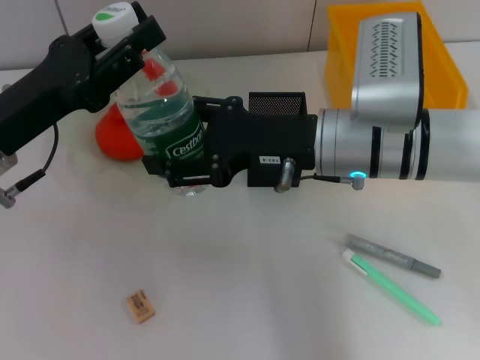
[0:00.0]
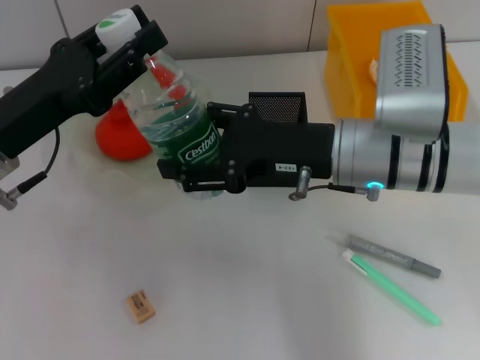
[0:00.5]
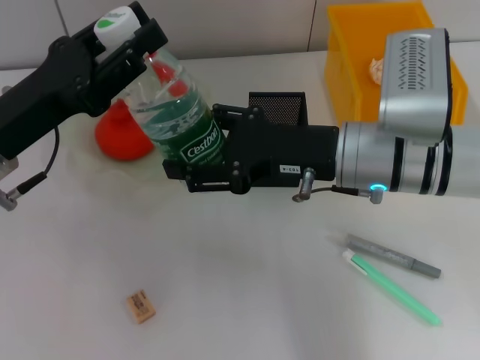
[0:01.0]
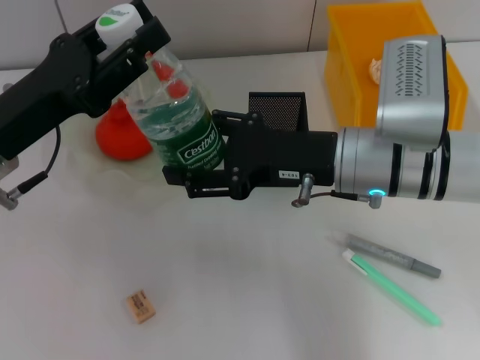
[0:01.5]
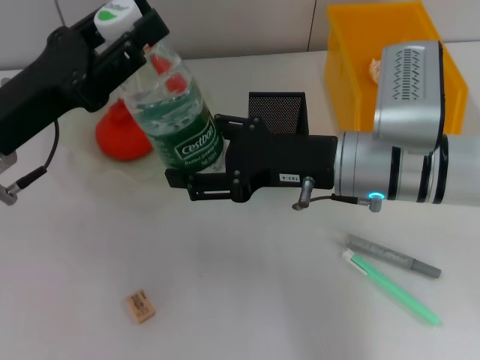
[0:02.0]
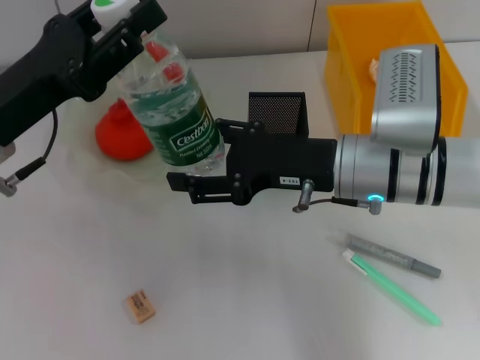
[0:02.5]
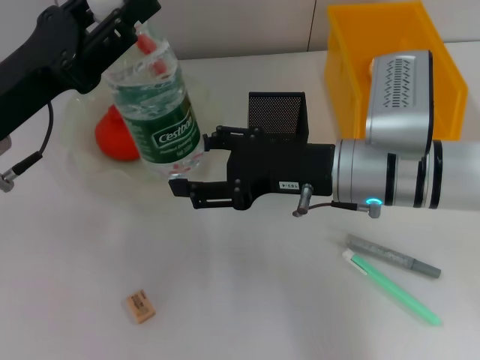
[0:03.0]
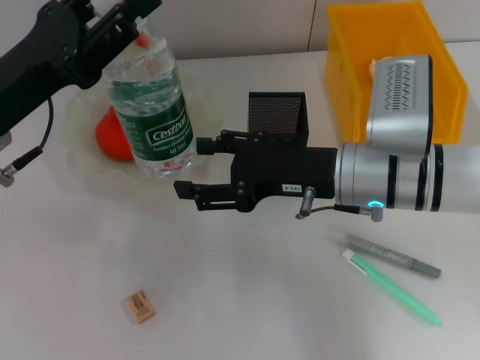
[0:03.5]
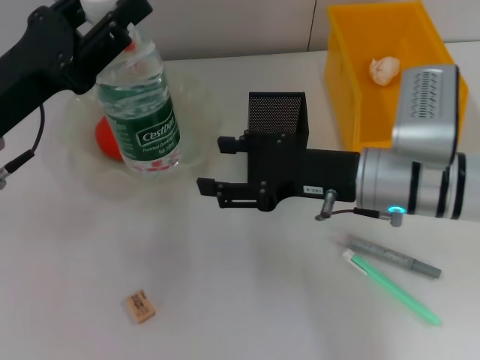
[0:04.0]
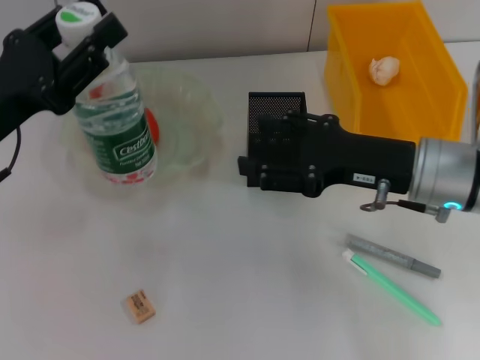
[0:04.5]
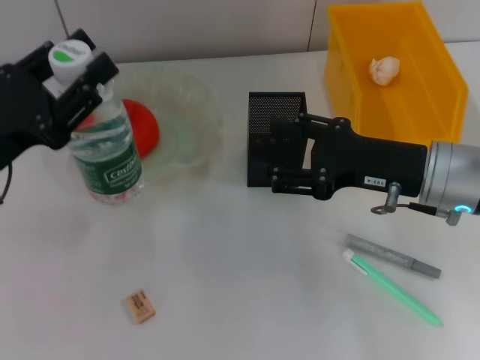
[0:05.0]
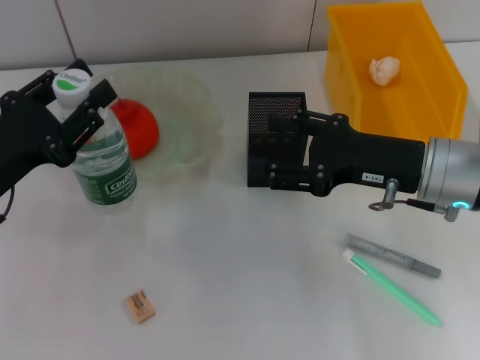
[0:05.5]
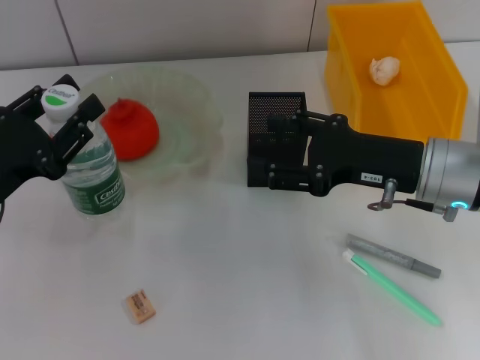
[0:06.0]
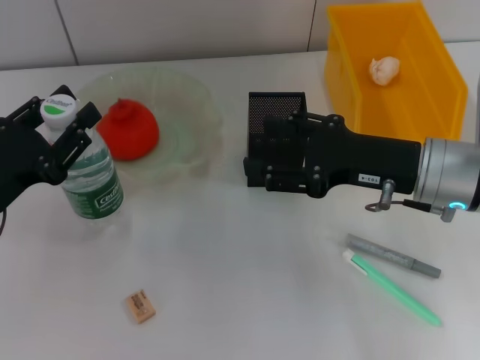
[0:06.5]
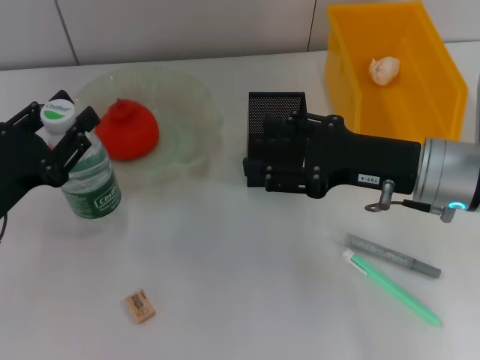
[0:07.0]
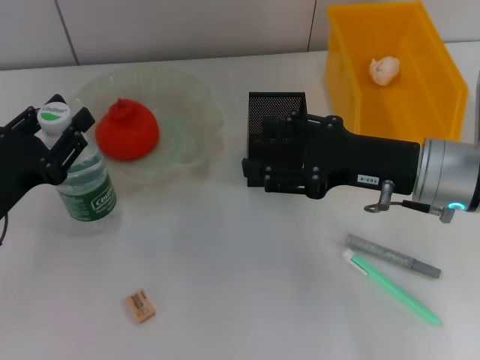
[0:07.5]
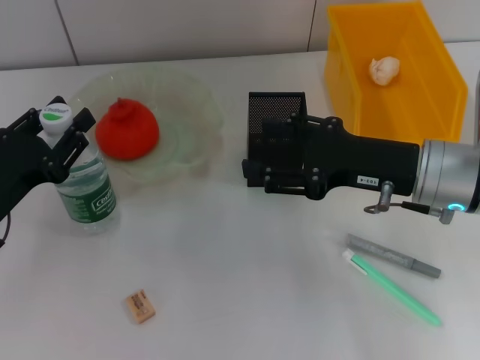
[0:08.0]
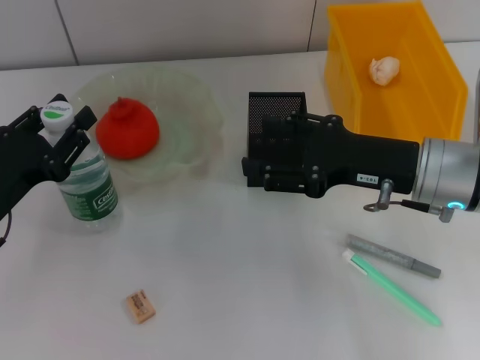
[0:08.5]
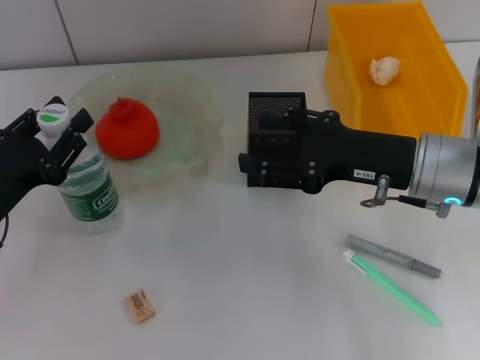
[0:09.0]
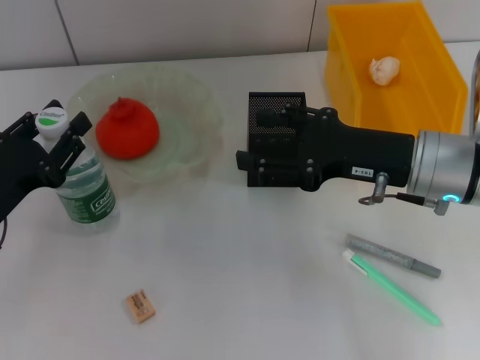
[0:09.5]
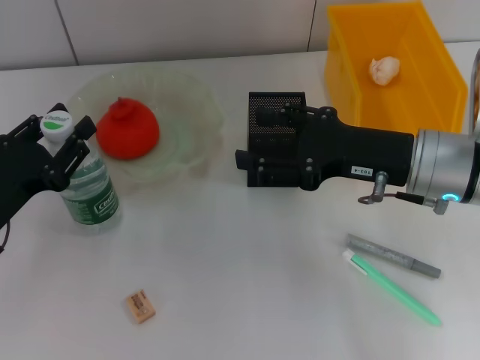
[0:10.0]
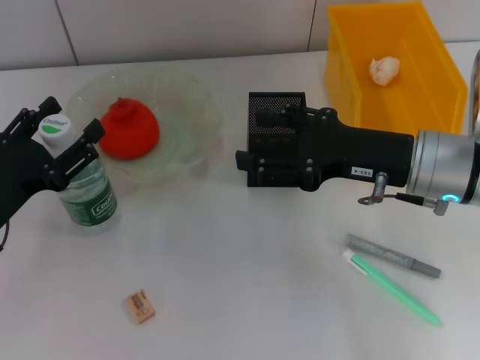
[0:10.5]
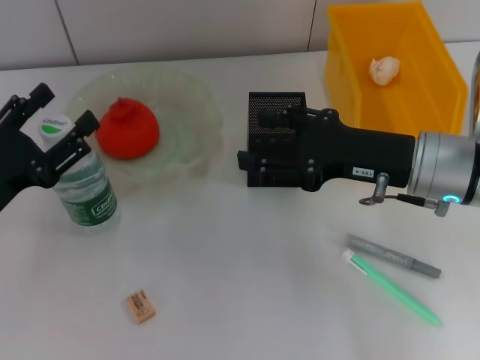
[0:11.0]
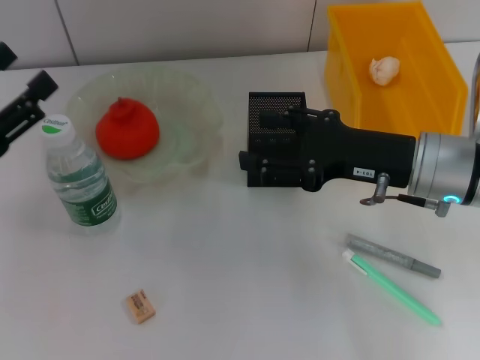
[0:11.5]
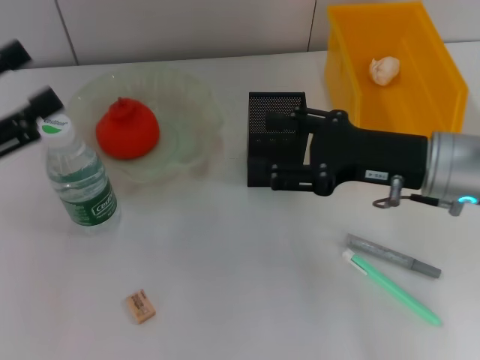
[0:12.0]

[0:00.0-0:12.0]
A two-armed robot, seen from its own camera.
Step, 0:00.0 to 0:03.0: Pass the water bottle from the right hand to the left hand.
Step, 0:04.0 to 0:10.5: Place the water bottle on the table with the left hand.
0:00.0 to 0:02.0: The grippers move only a little.
0:04.0 to 0:06.0: The left gripper shifts some 5 cm downward. Meanwhile the right gripper changes place by roughly 5 cm.
0:06.0 to 0:08.0: There are only small adjustments of the grippers.
0:08.0 to 0:10.0: Neither gripper changes place.
0:10.0 to 0:12.0: The left gripper is displaced upward by some 10 cm, and opens.

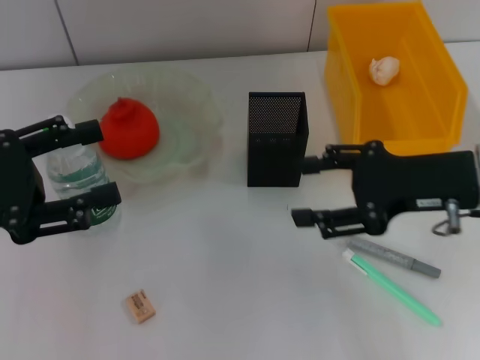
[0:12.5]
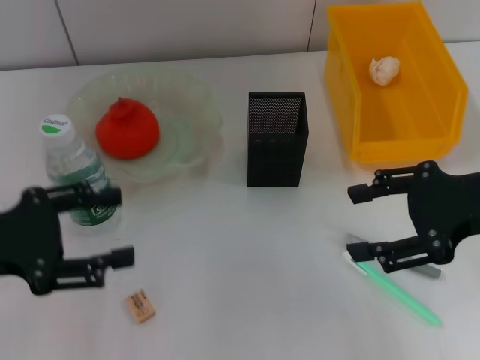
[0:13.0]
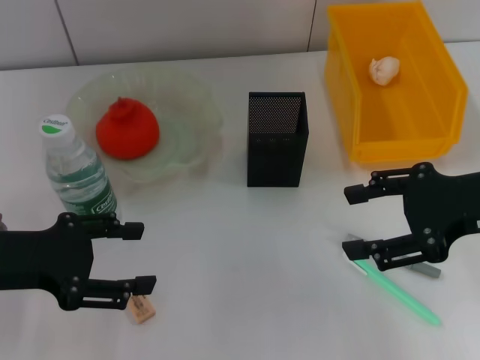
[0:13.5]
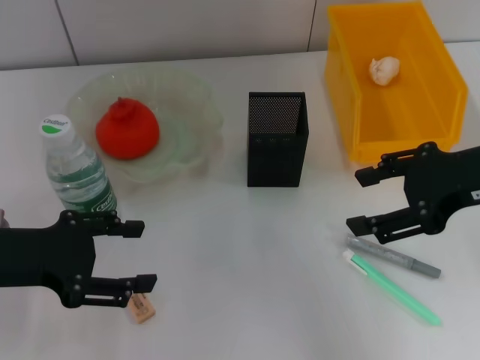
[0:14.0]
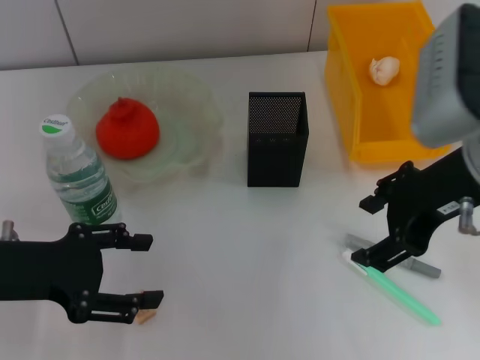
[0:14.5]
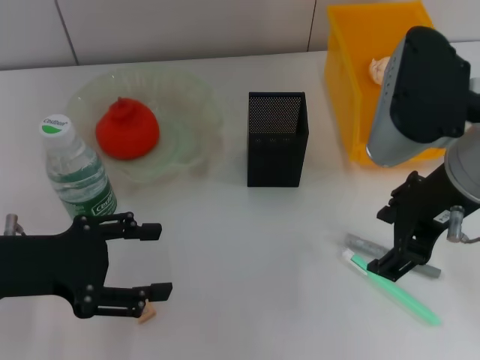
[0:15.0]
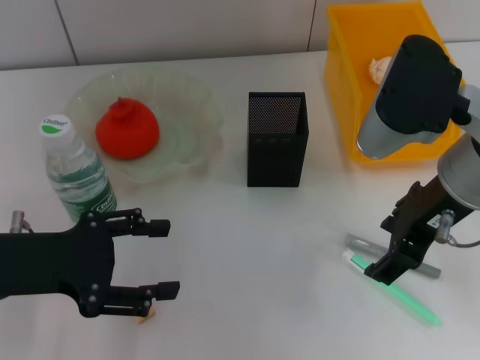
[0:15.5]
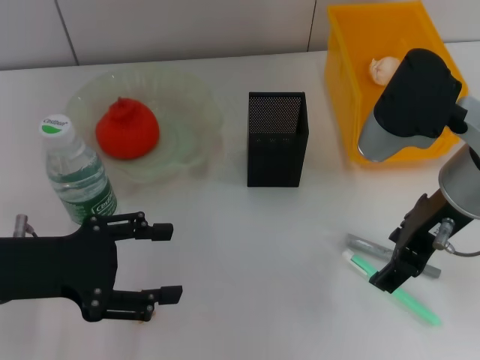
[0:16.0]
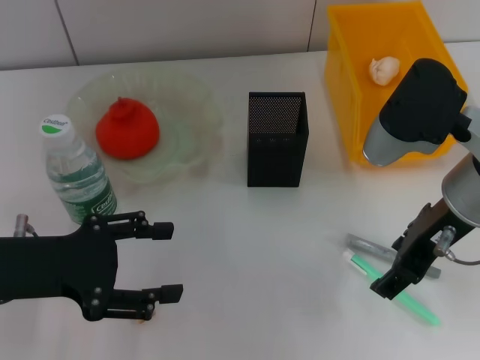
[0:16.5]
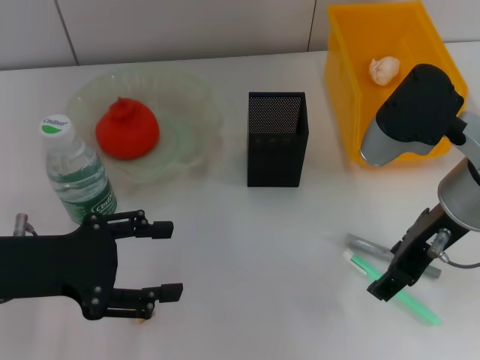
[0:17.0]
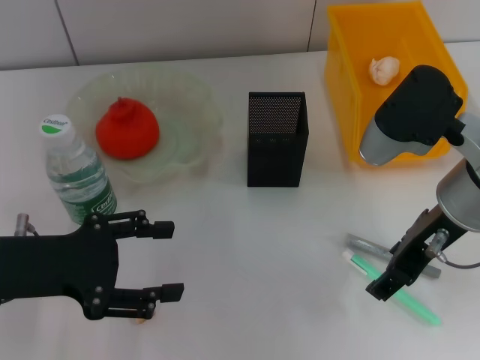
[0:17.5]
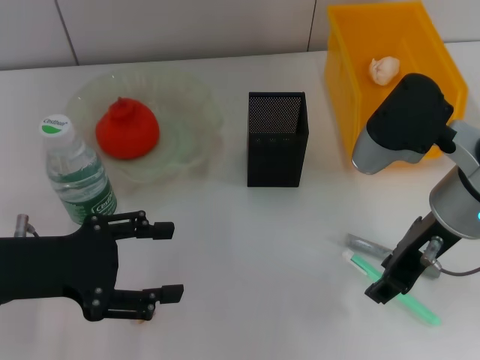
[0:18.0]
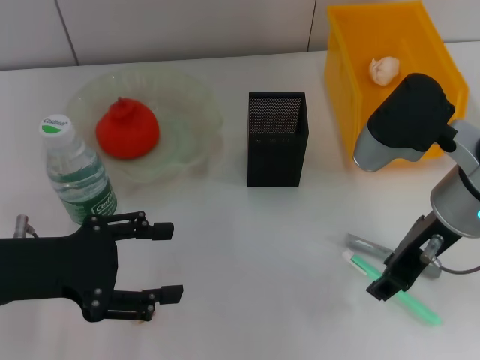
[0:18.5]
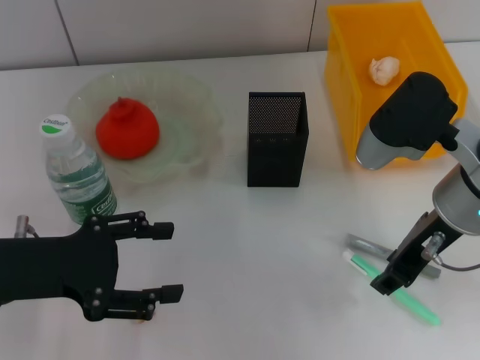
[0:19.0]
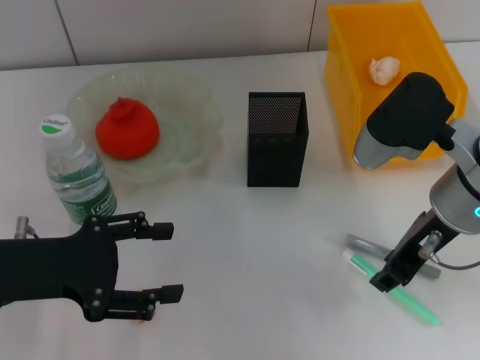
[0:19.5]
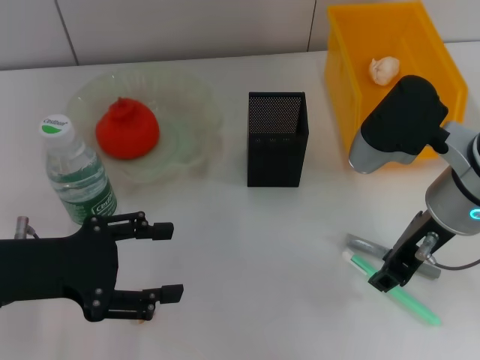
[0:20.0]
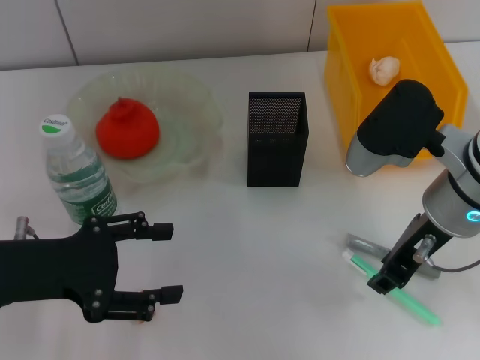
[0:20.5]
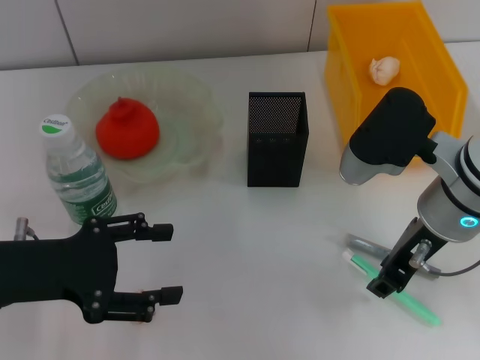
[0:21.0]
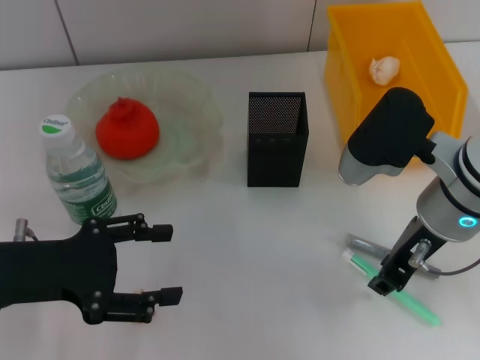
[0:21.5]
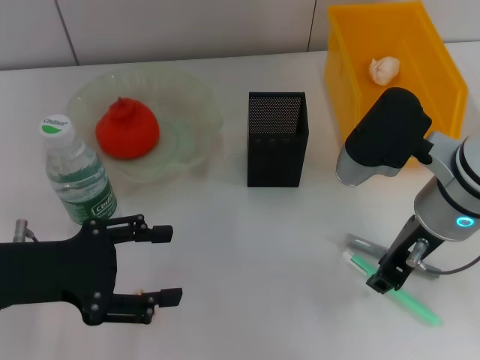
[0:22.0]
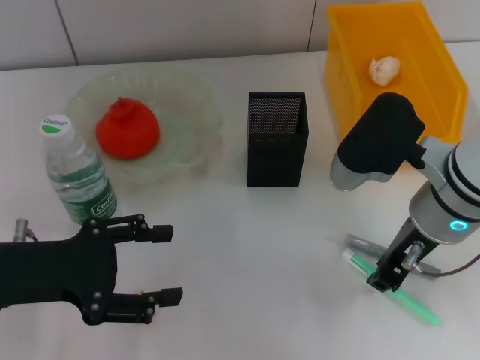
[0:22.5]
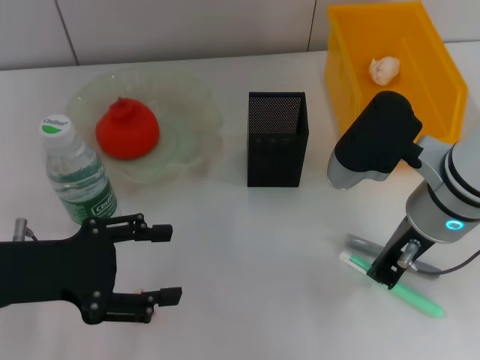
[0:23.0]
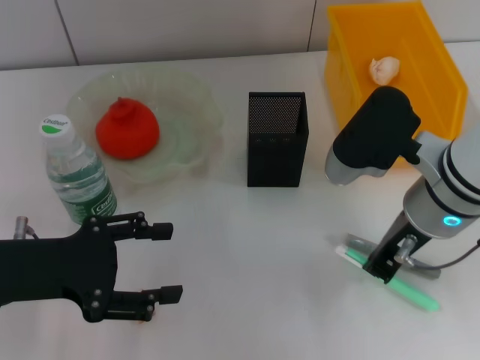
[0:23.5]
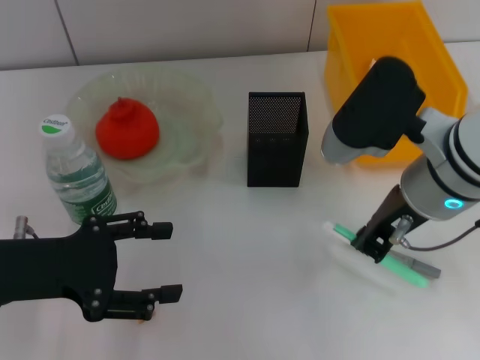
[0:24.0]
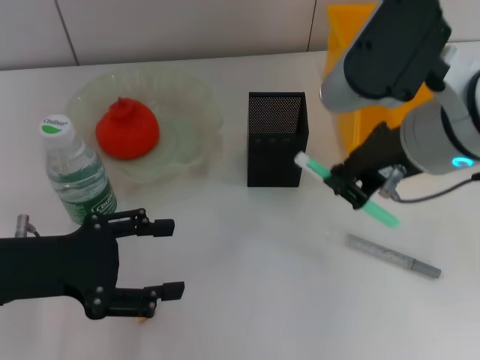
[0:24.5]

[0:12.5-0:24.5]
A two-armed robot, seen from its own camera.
Step, 0:12.5 to 0:23.0: Grab the blue utility knife with the right hand.
0:12.5 to 0:14.5: The right gripper goes some 10 cm upward and to the left.
0:16.5 to 0:18.5: The grippers make only small movements.
0:18.5 to 0:20.5: The two grippers keep their place.
0:20.5 to 0:22.5: The grippers move only a little.
0:22.5 to 0:24.5: The right gripper heads upward, covering about 10 cm.

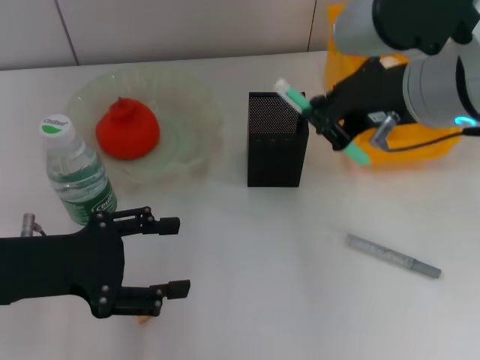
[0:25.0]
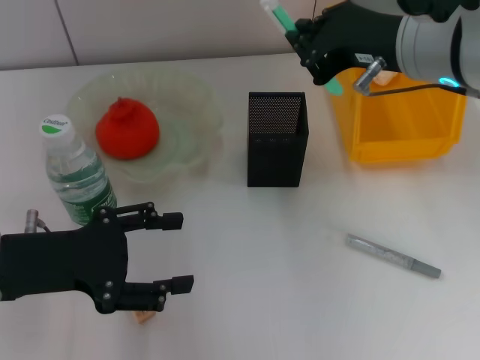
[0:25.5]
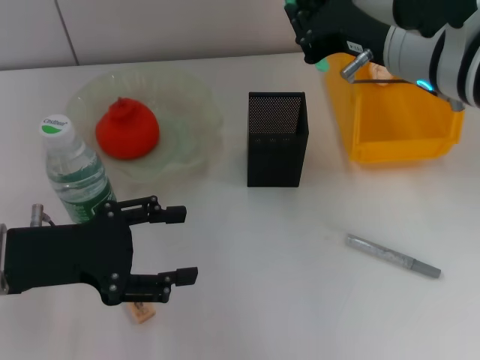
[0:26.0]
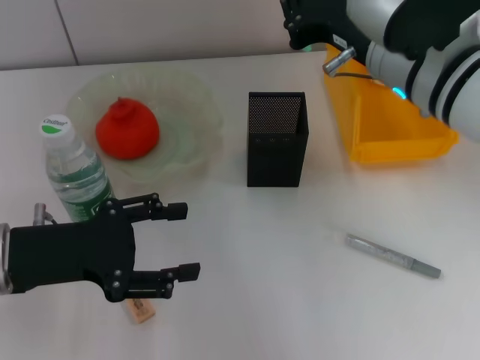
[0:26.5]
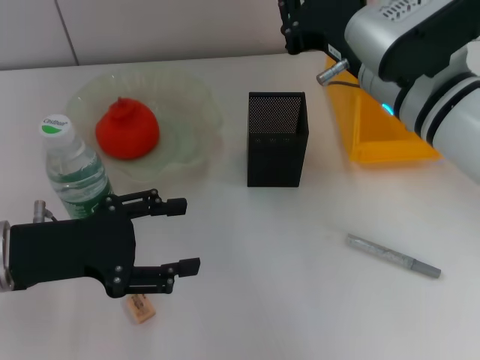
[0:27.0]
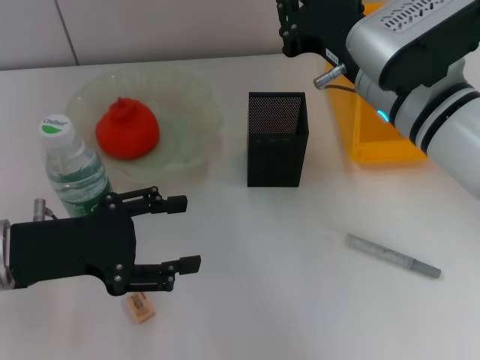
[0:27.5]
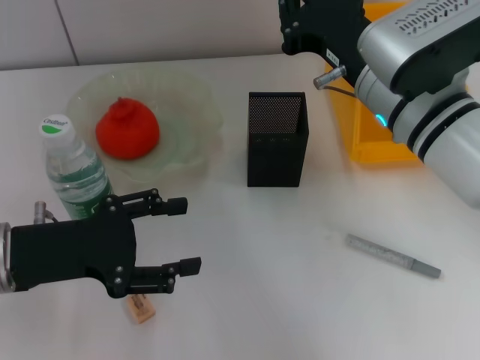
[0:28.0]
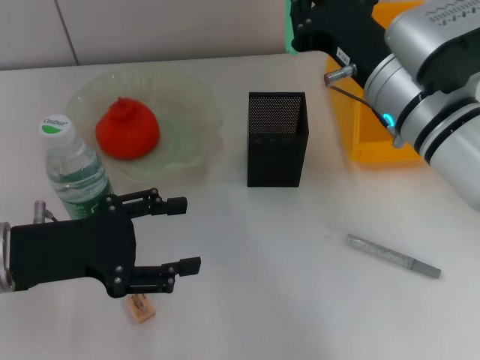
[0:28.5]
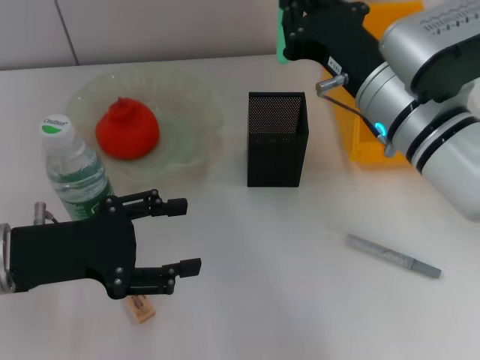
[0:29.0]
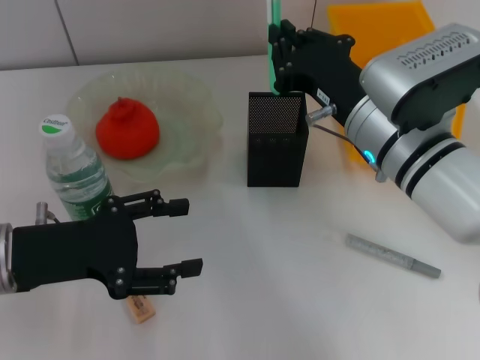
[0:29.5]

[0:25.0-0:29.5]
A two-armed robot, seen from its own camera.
0:25.0 to 0:27.0: The right gripper is displaced downward by roughly 10 cm.
0:27.0 to 0:29.5: The right gripper moves roughly 5 cm.
